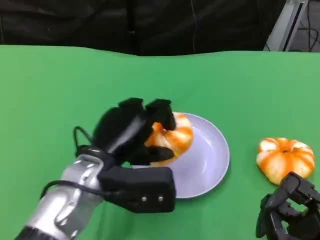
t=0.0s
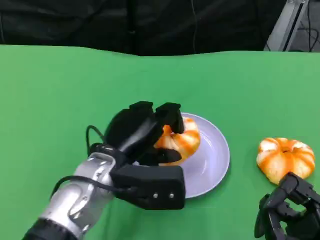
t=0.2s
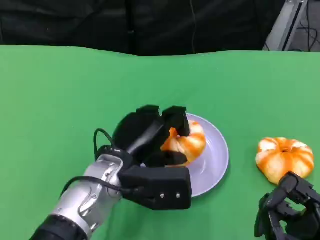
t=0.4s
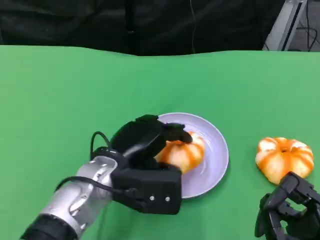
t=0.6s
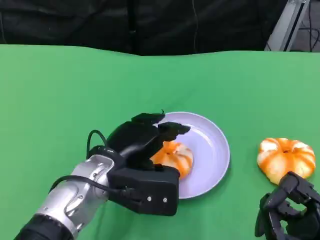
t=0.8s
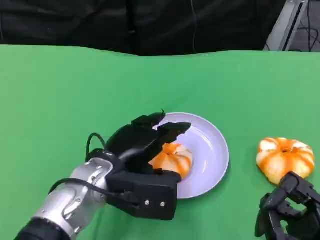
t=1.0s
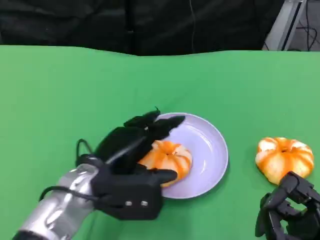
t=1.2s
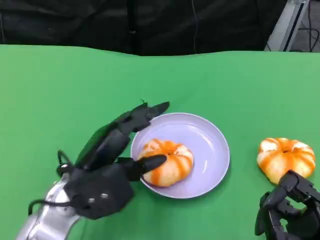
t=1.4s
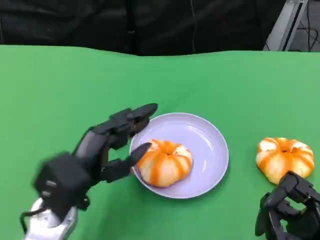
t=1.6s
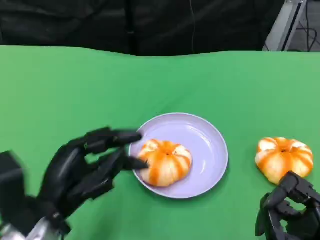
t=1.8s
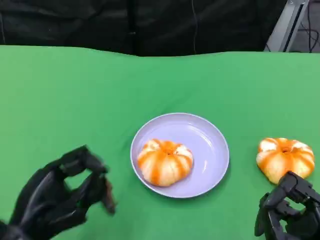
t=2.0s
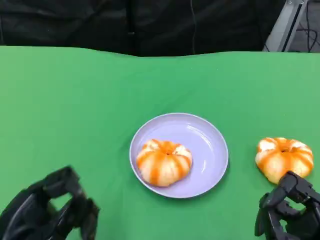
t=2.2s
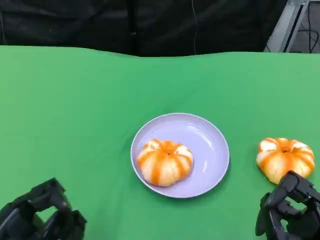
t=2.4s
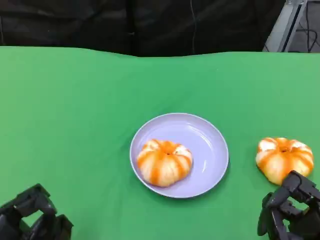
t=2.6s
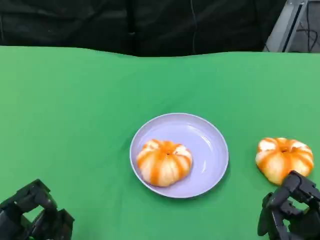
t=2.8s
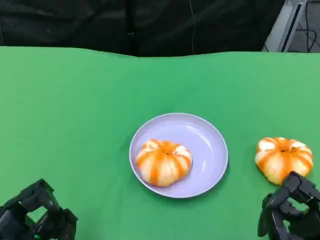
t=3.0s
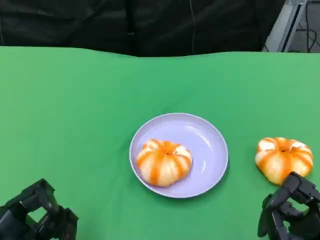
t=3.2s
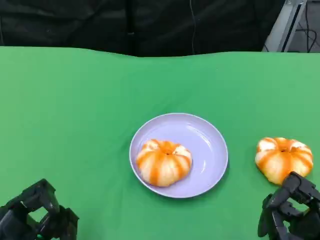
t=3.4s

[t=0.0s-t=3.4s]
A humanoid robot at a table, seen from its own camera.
Task of the whole recording: Grasp the bread from the table and place it into the plate.
t=0.0s to t=1.6s: The left hand moves to the left, about 5 cm.
t=1.6s to t=3.4s: The left hand travels to the left and backward by about 15 cm.

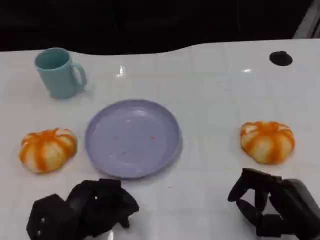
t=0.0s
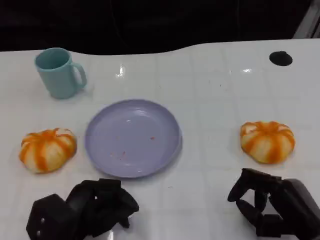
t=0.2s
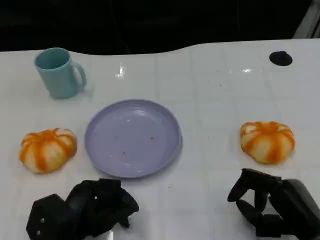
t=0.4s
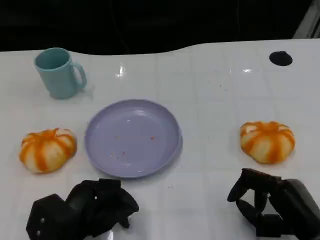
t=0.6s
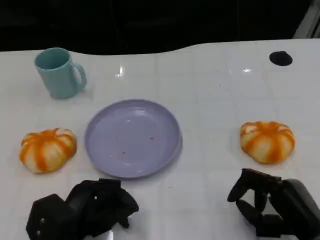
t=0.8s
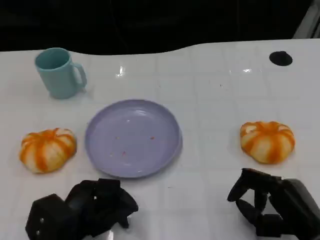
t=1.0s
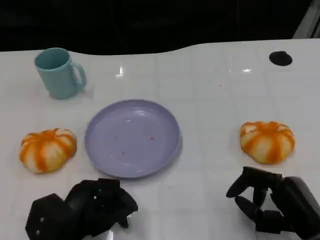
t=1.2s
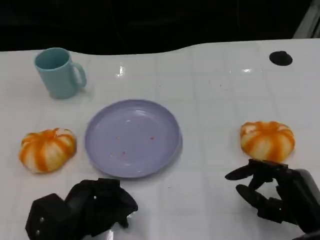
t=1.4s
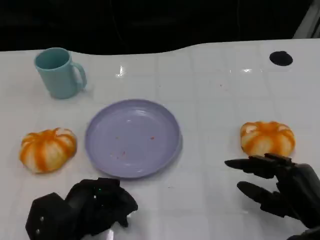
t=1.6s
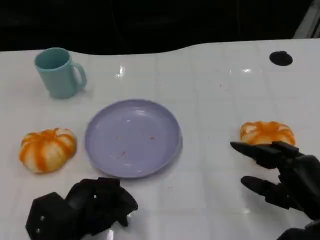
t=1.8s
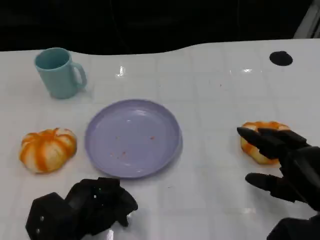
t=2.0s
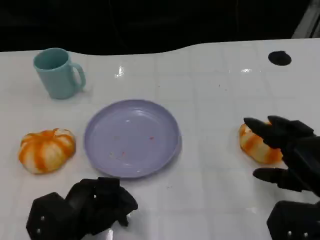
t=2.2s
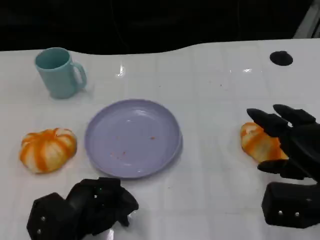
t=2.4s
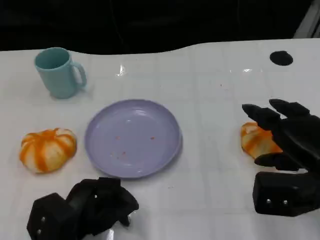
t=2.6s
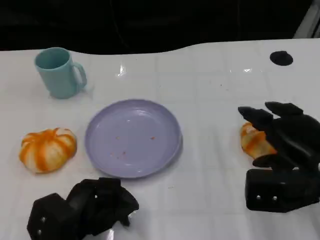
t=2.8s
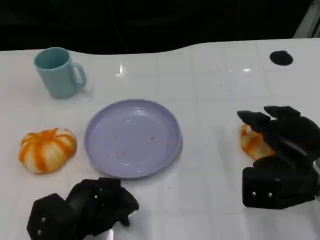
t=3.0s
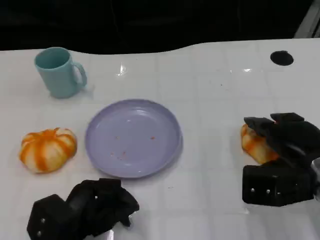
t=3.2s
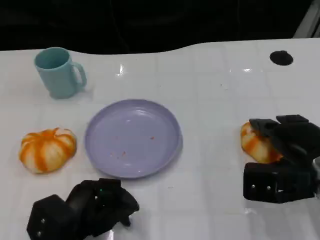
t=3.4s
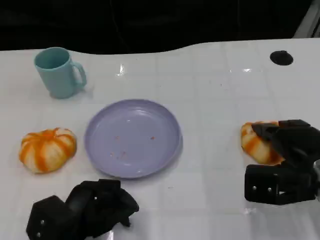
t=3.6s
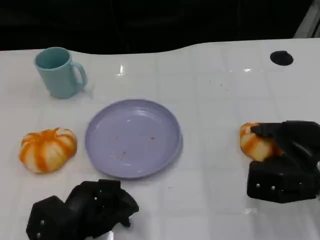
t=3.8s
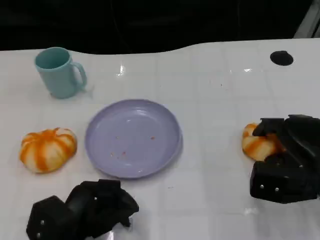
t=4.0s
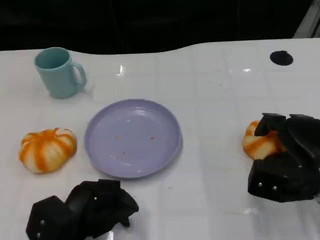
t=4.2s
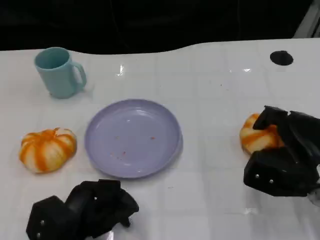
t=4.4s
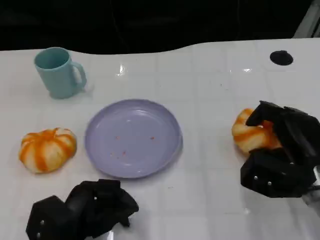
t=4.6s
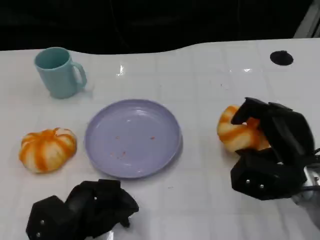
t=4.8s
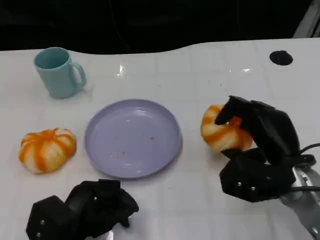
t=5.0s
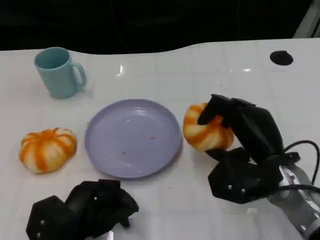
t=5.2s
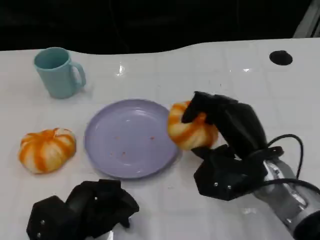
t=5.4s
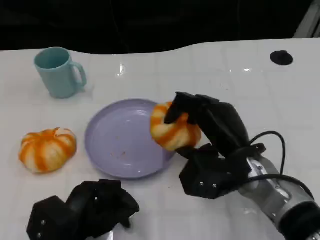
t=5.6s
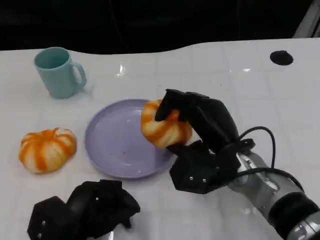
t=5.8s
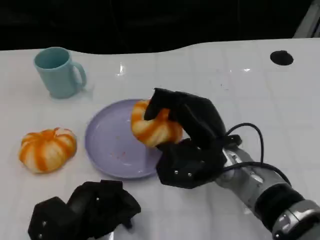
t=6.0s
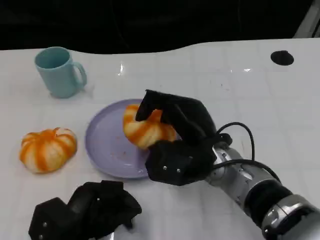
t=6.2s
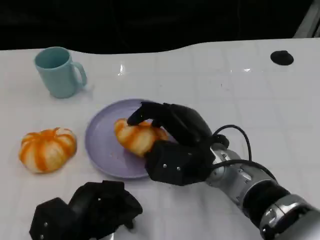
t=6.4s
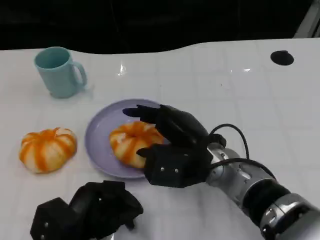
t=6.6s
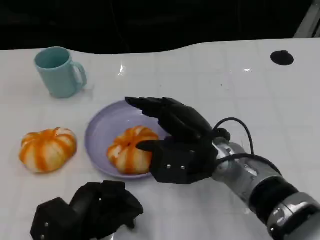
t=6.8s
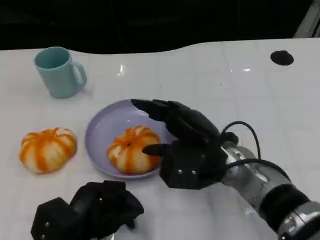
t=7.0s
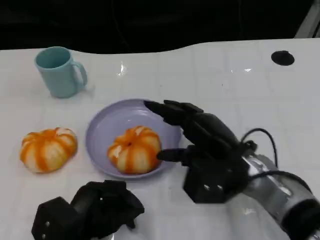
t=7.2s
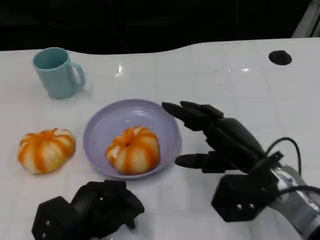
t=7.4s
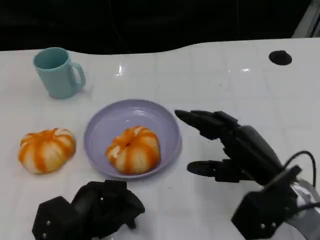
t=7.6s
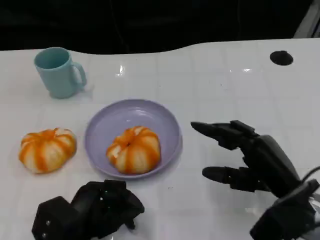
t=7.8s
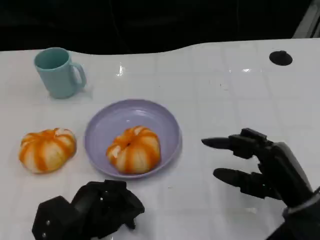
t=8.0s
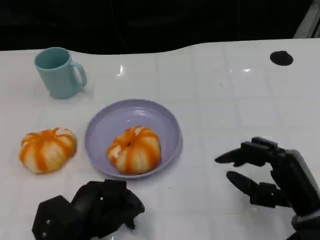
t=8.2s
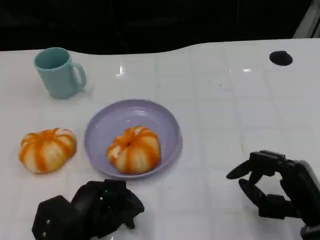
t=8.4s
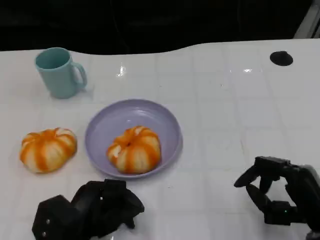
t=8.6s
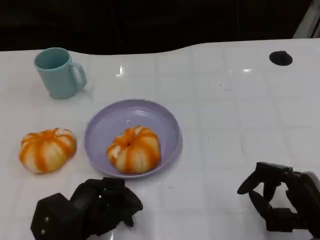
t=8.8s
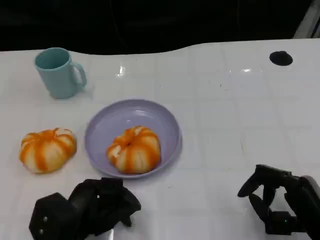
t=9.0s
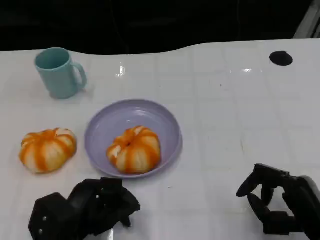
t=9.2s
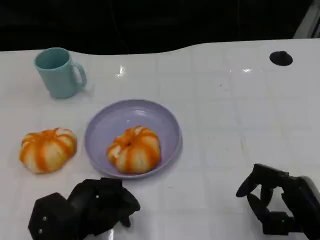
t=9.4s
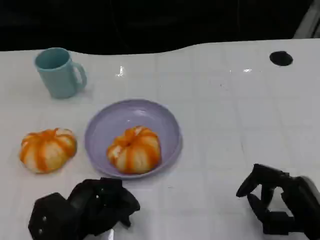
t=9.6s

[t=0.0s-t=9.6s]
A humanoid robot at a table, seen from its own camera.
Task of the whole recording: Grasp the bread from the table and place it into the plate.
t=0.0s to t=1.6s: The hands make only small movements.
t=1.6s to t=3.2s: The right hand heads forward, covering about 10 cm.
t=4.8s to t=6.4s: The right hand travels to the left by about 15 cm.
t=6.4s to t=8.0s: The right hand goes roughly 15 cm to the right and backward.
t=8.0s to t=9.6s: The right hand changes place by some 5 cm.

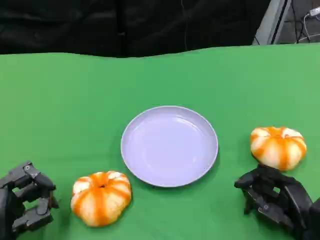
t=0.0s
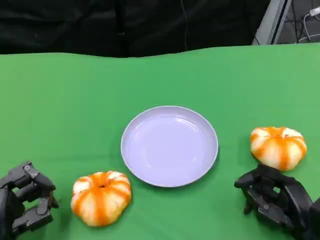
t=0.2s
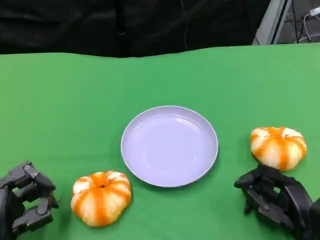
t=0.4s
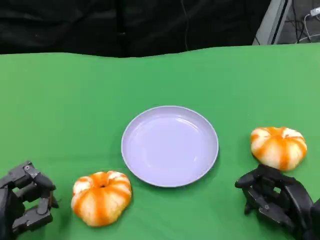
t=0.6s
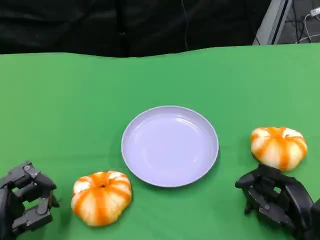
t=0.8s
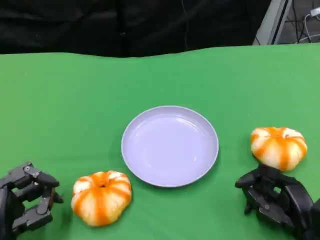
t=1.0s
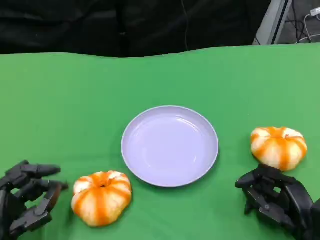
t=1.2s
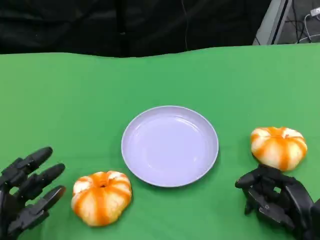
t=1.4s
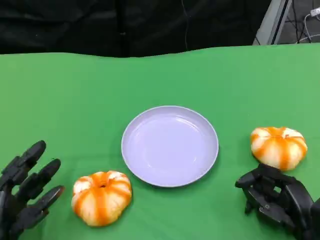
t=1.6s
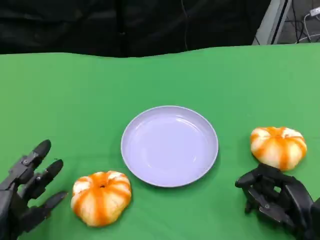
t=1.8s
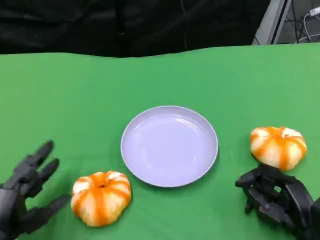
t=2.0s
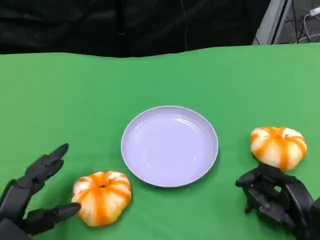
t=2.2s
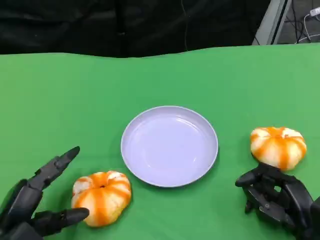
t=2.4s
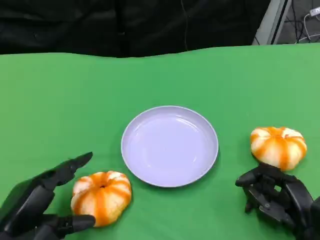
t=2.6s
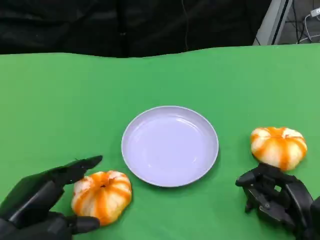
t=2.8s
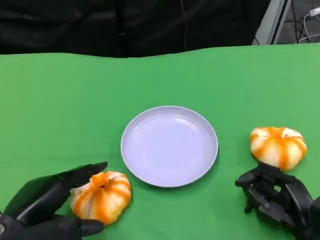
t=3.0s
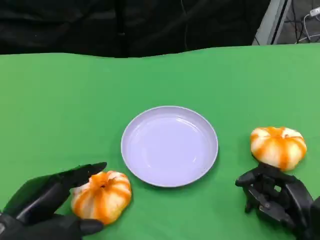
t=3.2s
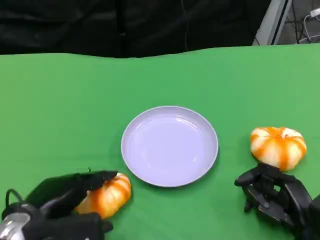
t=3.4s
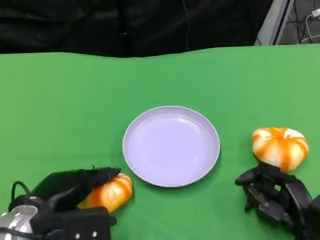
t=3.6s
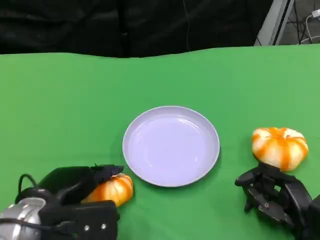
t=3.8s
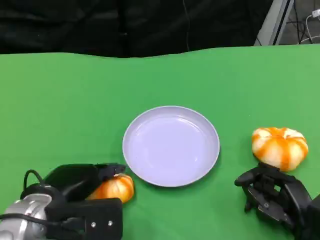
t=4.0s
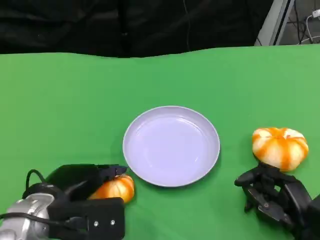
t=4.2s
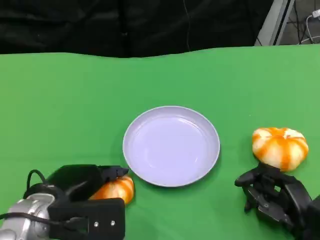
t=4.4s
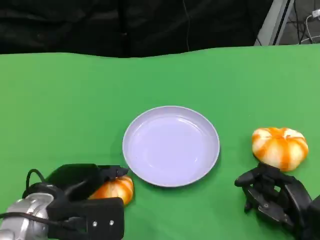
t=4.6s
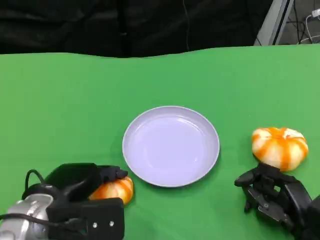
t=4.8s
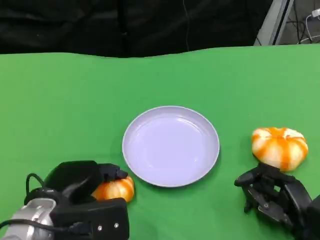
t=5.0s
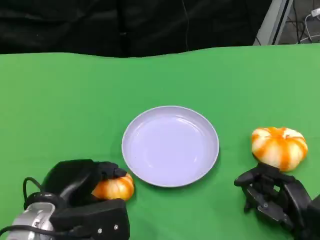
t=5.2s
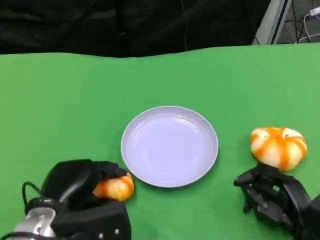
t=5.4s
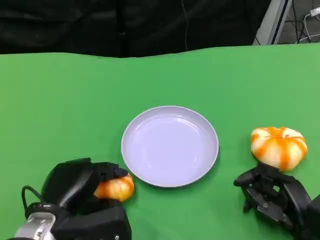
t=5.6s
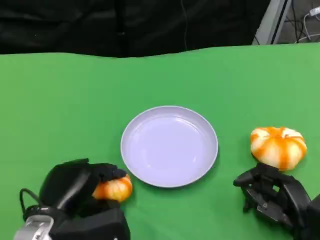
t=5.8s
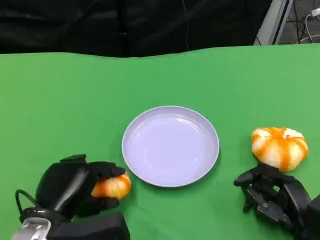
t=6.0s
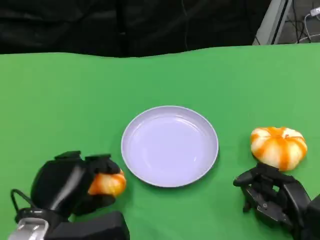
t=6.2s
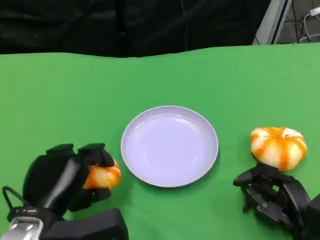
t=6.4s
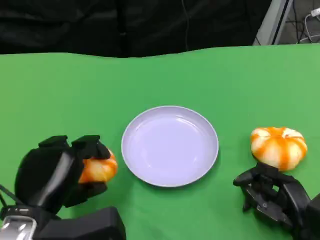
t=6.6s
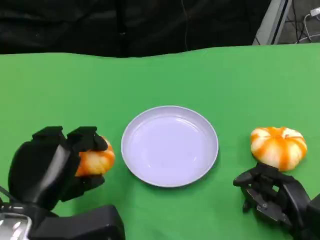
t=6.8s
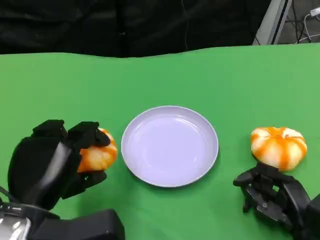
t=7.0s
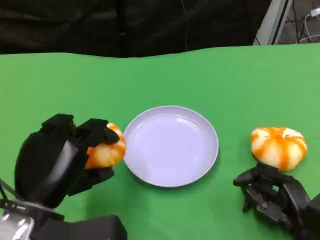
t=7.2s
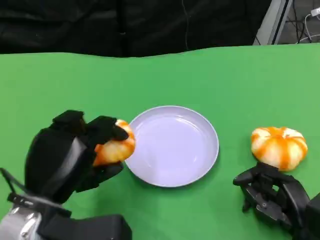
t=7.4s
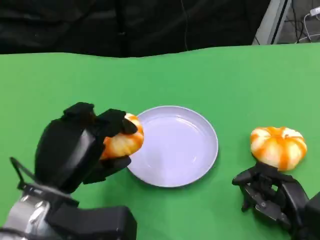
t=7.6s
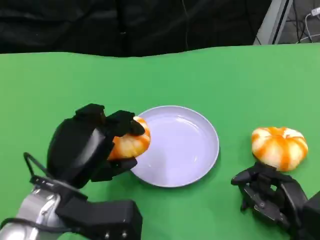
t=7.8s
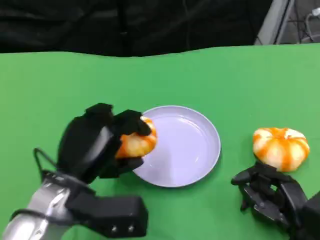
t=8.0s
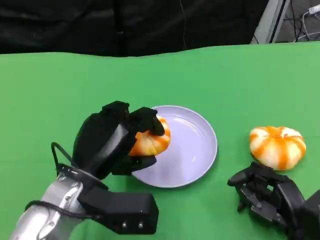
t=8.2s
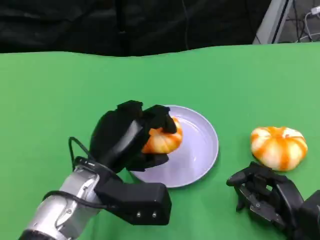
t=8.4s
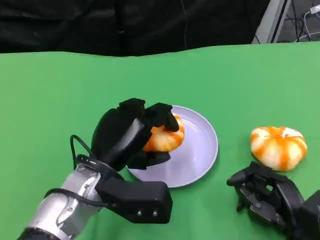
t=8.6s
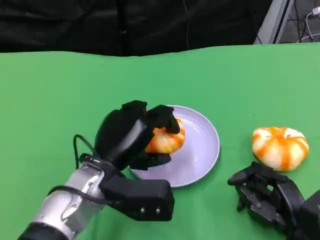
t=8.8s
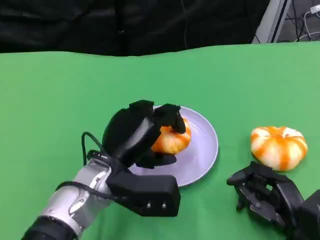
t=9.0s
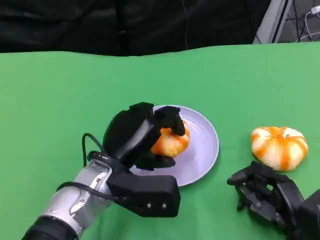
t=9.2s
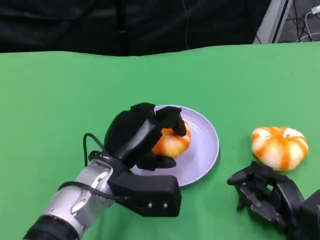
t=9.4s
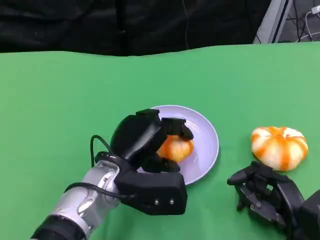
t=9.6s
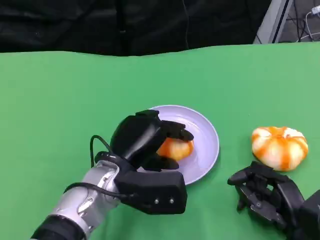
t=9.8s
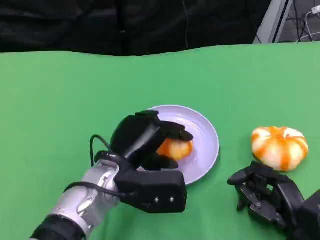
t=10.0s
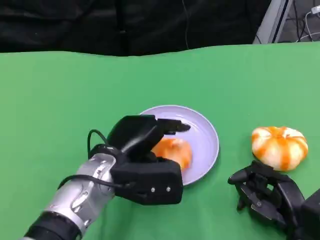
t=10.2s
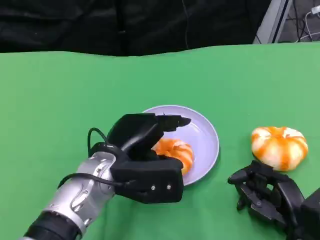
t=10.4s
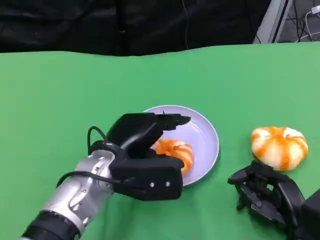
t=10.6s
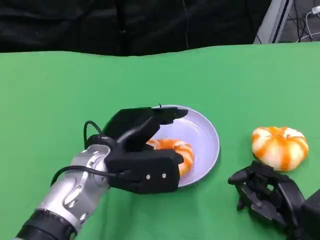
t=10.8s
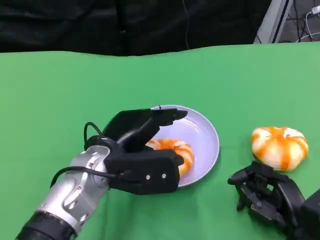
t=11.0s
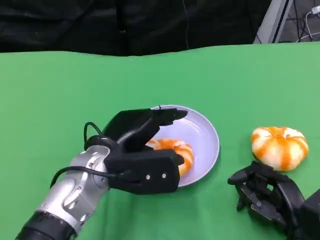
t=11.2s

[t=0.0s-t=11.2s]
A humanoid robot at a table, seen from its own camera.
Task of the whole recording: Grasp the bread from the table and place it into the plate.
t=0.0s to t=1.6s: The hands move only a little.
t=1.6s to t=3.2s: The left hand goes some 10 cm upward.
t=3.2s to t=4.8s: The left hand changes place by about 5 cm.
t=6.4s to t=8.0s: The left hand is displaced forward by roughly 5 cm.
t=8.0s to t=9.6s: The left hand shifts some 5 cm to the right.
t=9.6s to t=11.2s: The hands make only small movements.
